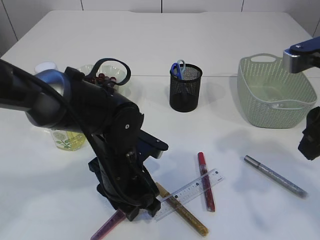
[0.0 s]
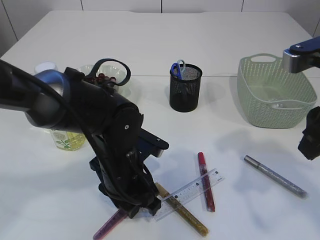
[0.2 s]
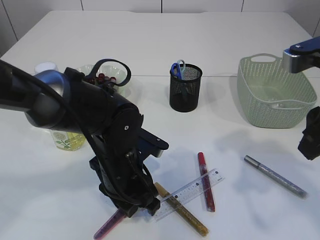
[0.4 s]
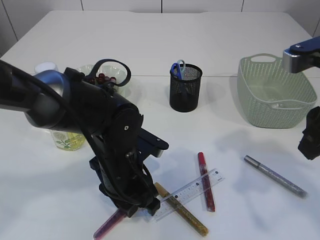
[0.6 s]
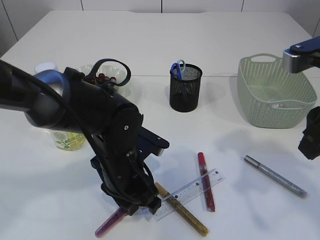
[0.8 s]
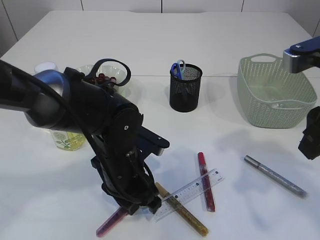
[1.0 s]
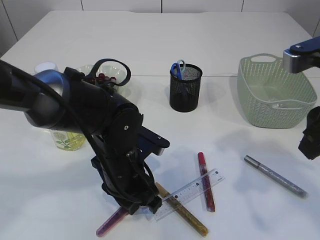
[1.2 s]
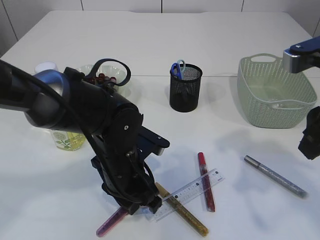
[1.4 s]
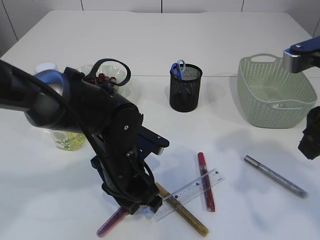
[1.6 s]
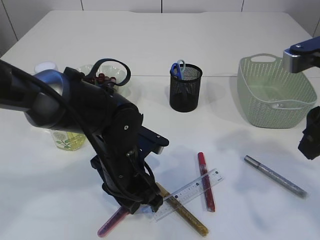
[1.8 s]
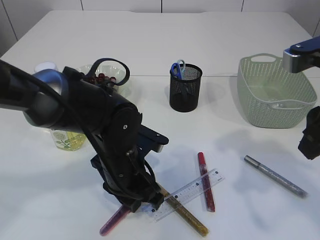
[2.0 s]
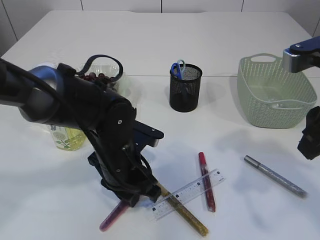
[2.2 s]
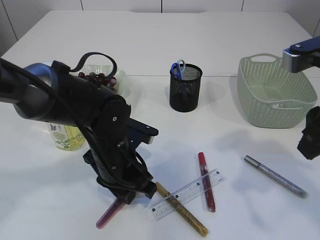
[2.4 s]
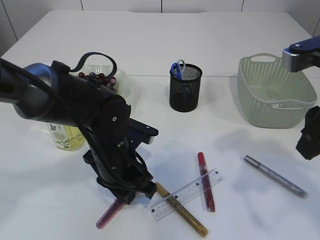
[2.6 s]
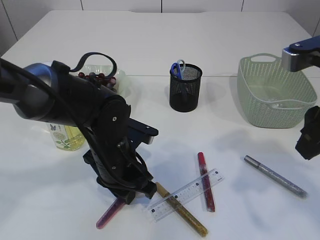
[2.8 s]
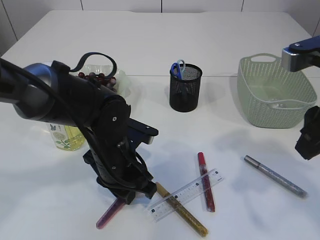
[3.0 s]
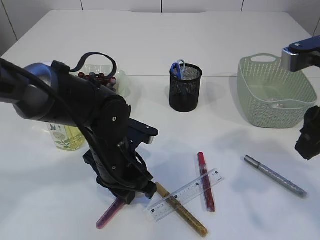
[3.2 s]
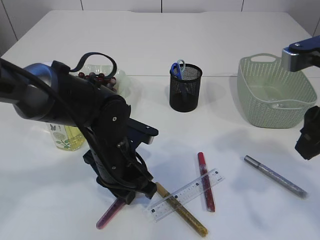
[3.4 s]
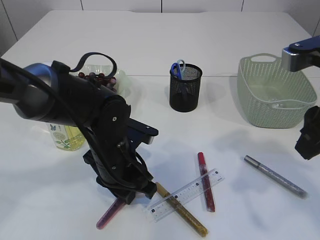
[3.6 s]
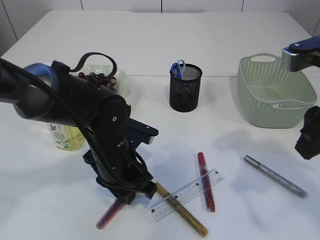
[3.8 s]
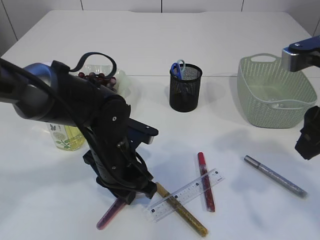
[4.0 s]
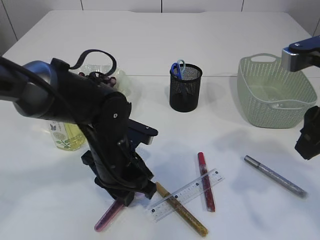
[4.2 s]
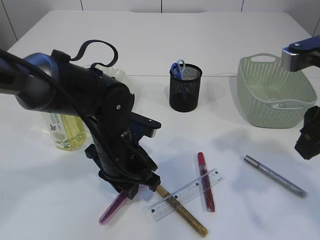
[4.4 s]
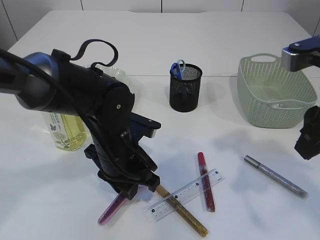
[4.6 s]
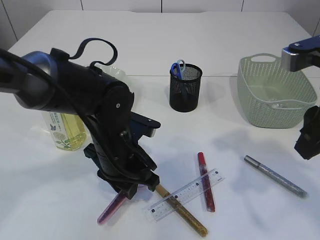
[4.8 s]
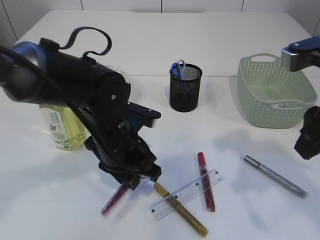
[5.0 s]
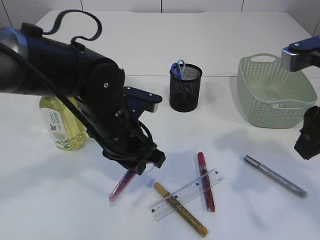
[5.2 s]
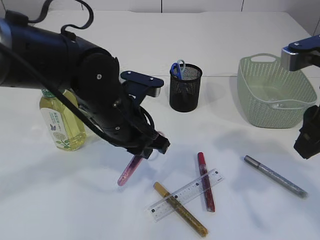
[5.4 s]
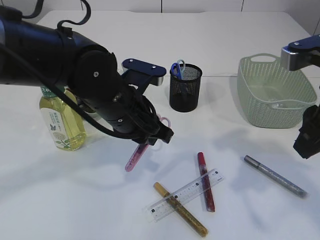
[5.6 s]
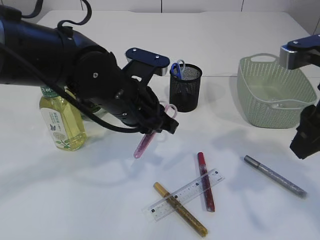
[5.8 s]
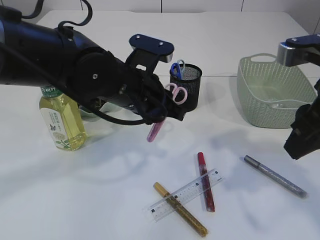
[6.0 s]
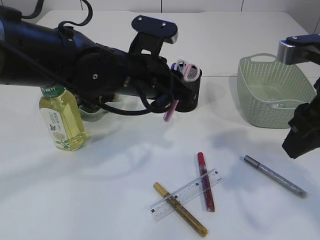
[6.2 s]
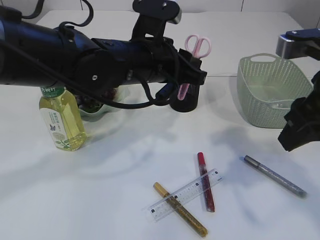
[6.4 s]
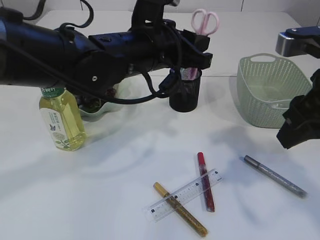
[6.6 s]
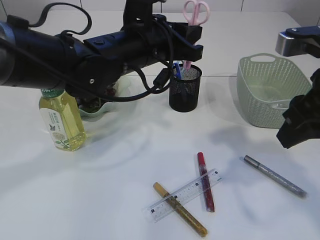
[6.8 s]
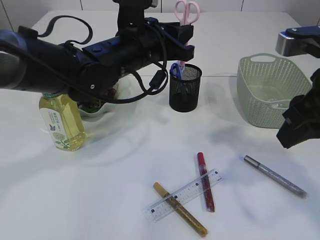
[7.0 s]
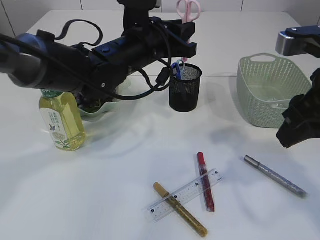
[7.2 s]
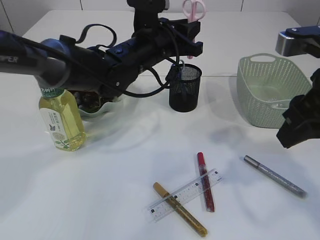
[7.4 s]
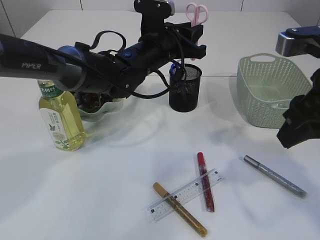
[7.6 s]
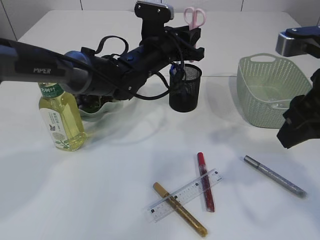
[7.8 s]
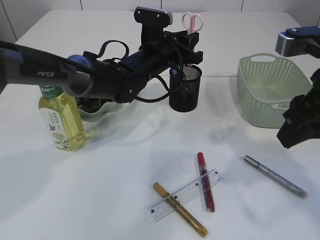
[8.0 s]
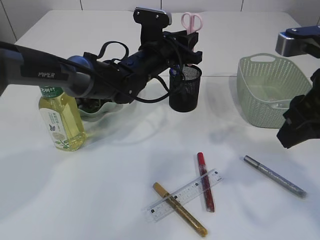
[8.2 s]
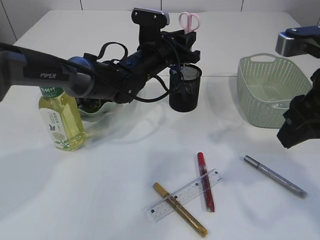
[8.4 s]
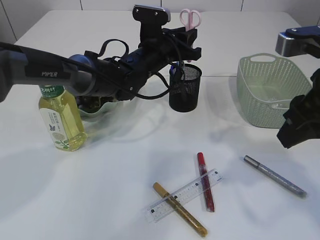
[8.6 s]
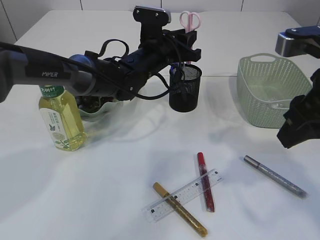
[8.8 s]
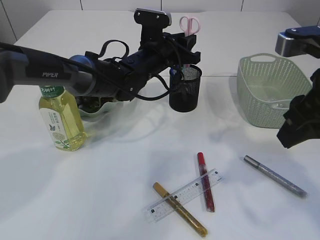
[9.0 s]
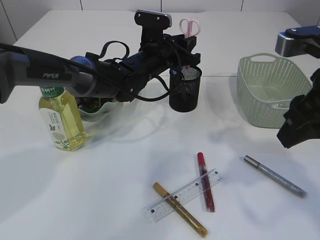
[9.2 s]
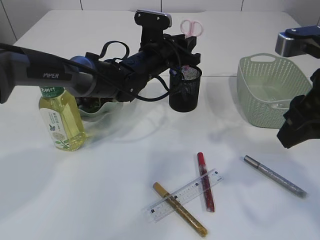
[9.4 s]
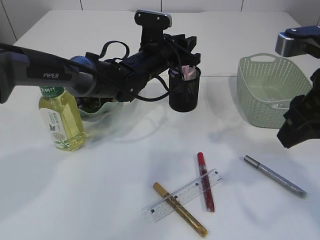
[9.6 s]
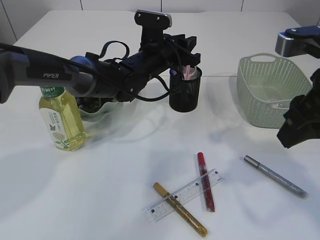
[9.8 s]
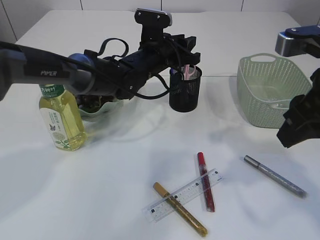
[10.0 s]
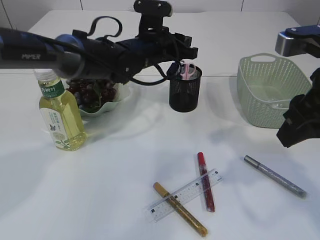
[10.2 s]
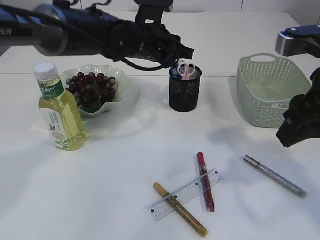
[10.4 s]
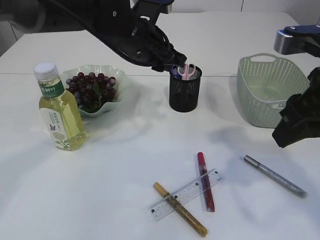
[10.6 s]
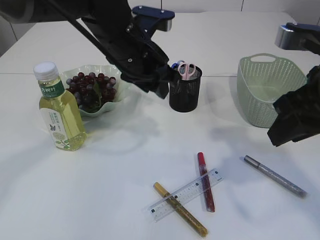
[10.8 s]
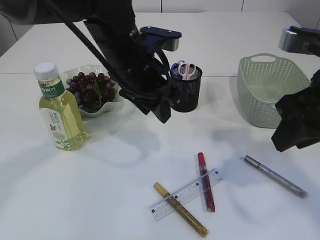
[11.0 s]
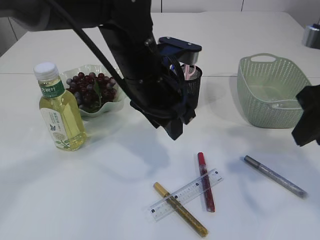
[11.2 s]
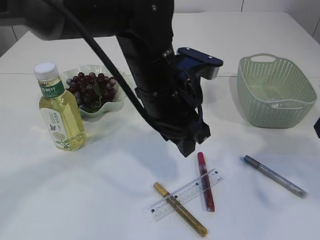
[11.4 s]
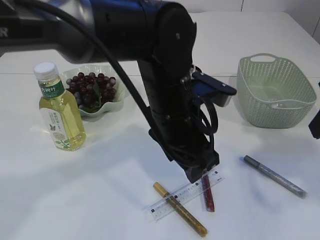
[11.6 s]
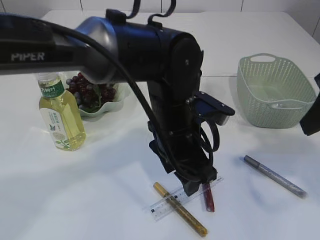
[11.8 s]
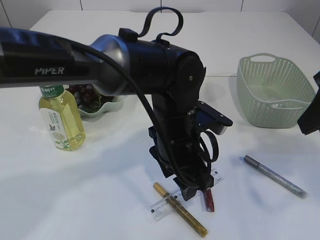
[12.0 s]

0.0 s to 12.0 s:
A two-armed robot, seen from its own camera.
Step, 0.0 to 5.6 s: pick up the pink scissors.
Step, 5.8 to 10.6 s: Place the pink scissors into the pen holder.
0.0 to 1.6 s: Both grippers stay about where they are.
1.6 to 3.0 s: There are only small adjustments of the grippers.
3.0 to 4.4 s: Neither gripper changes place.
4.4 to 6.0 s: The left gripper travels upward by some 10 cm.
6.0 to 7.6 s: The left gripper goes roughly 10 cm forward.
7.6 to 9.0 s: The grippers stay close to where they were, moving slightly.
9.0 to 10.4 s: The left gripper moves about 5 cm.
10.4 to 12.0 s: The left gripper travels backward and downward by some 15 cm, and opens.

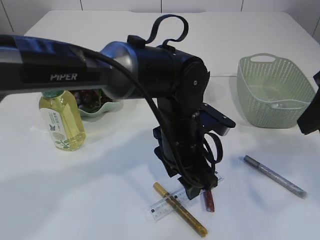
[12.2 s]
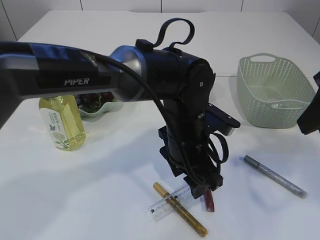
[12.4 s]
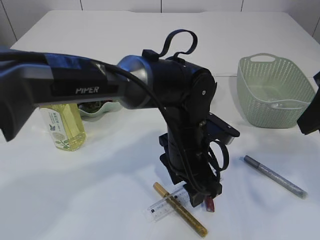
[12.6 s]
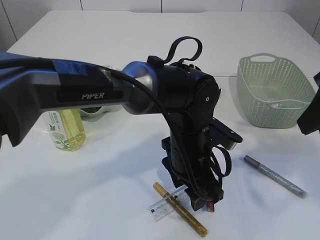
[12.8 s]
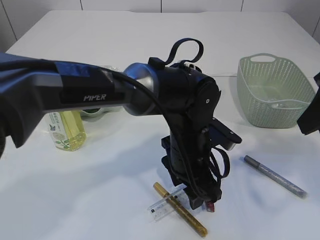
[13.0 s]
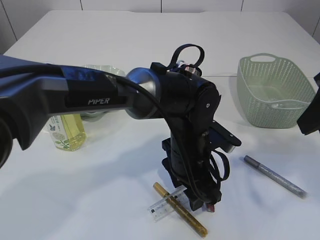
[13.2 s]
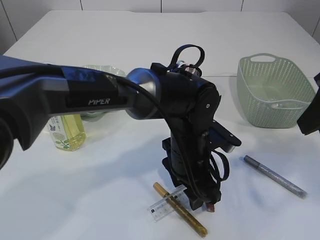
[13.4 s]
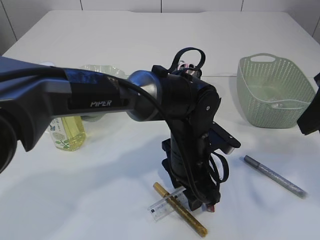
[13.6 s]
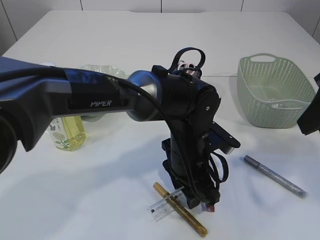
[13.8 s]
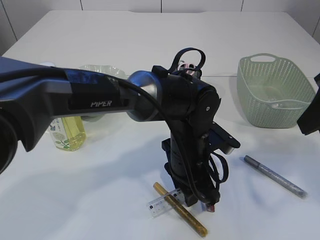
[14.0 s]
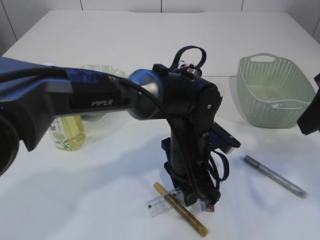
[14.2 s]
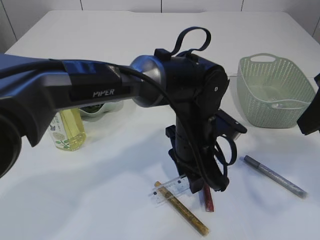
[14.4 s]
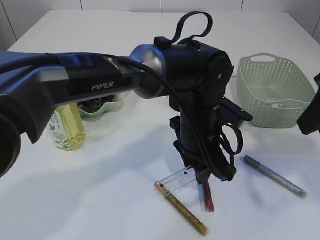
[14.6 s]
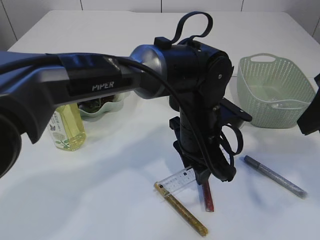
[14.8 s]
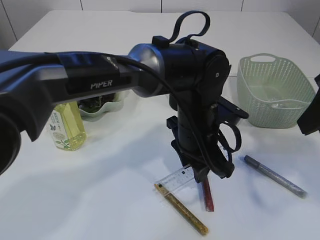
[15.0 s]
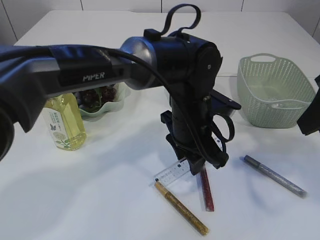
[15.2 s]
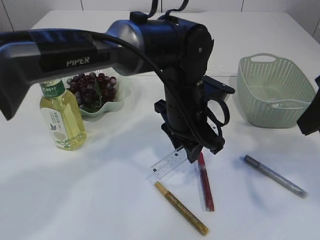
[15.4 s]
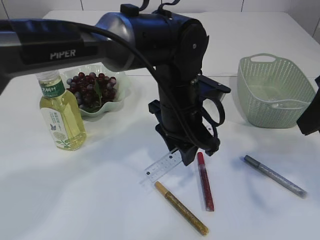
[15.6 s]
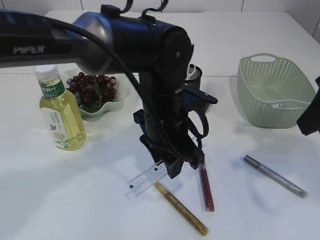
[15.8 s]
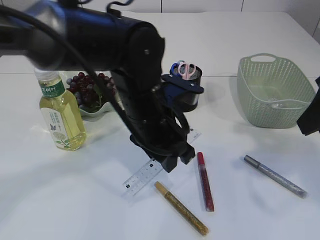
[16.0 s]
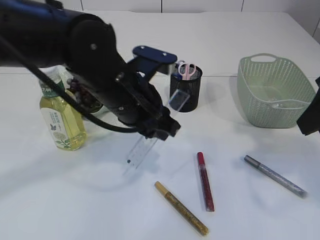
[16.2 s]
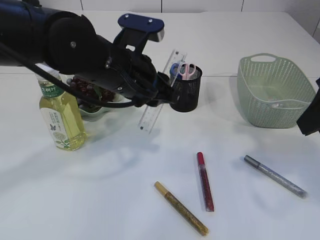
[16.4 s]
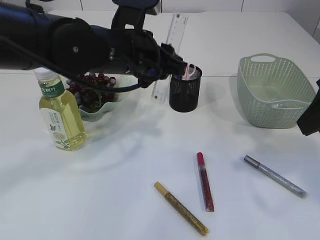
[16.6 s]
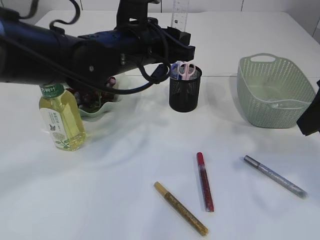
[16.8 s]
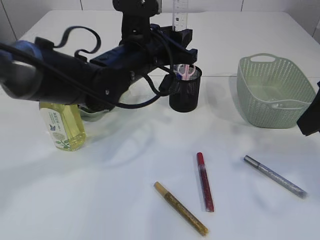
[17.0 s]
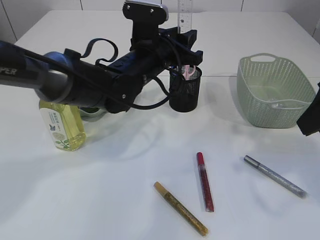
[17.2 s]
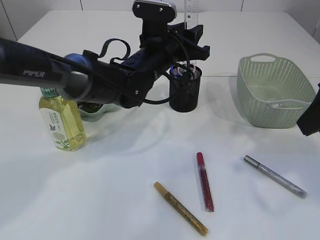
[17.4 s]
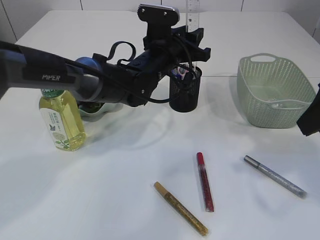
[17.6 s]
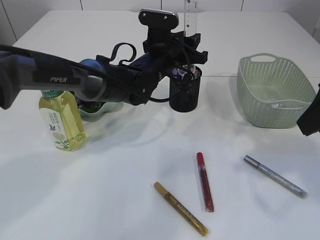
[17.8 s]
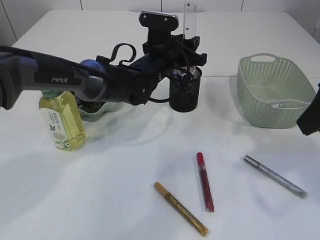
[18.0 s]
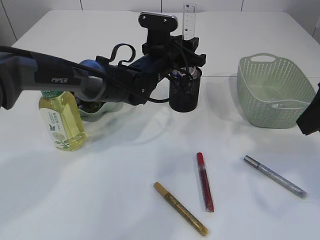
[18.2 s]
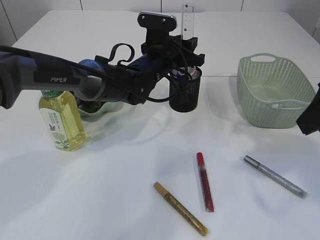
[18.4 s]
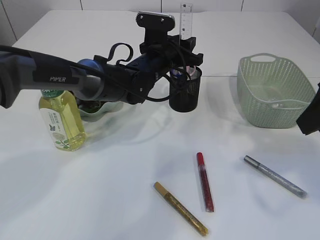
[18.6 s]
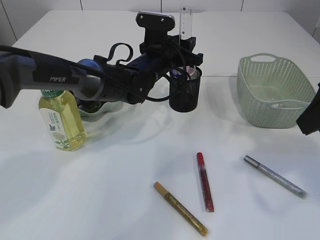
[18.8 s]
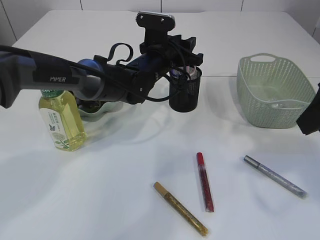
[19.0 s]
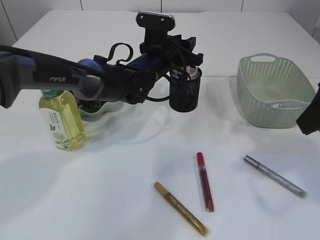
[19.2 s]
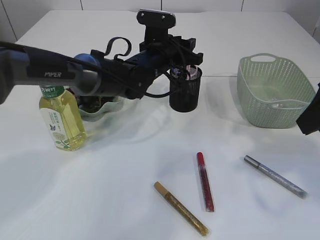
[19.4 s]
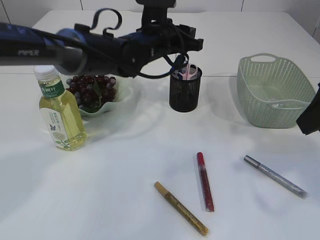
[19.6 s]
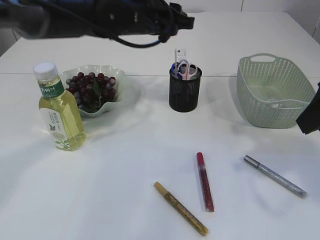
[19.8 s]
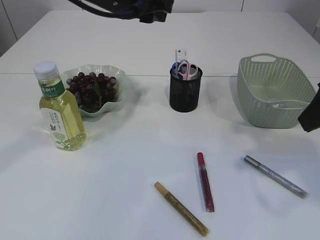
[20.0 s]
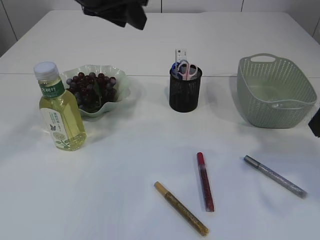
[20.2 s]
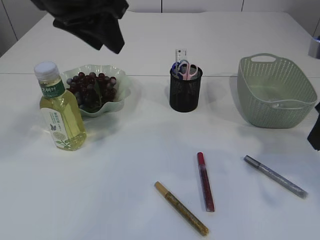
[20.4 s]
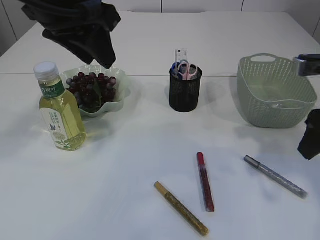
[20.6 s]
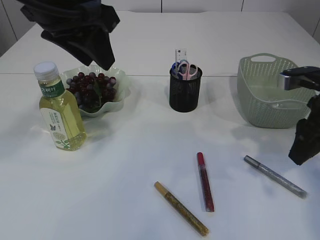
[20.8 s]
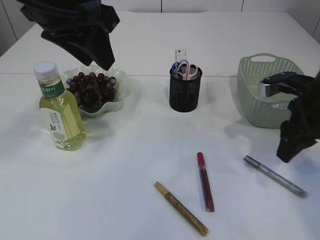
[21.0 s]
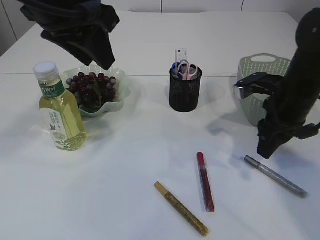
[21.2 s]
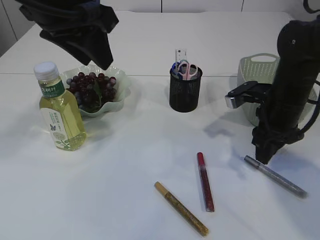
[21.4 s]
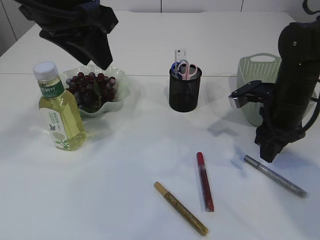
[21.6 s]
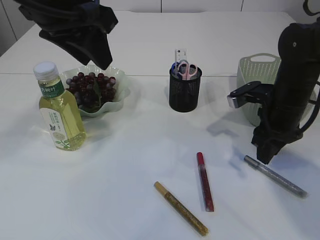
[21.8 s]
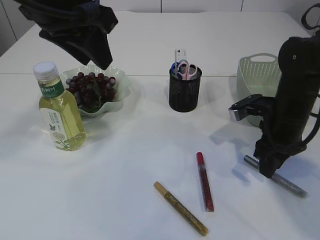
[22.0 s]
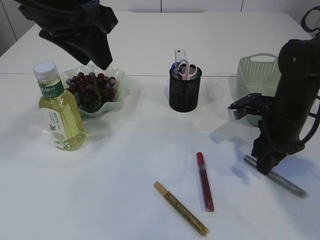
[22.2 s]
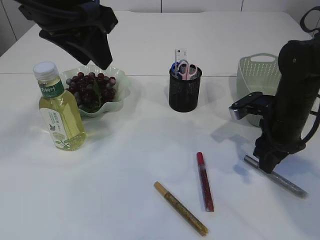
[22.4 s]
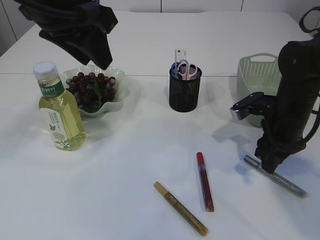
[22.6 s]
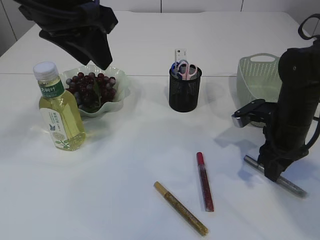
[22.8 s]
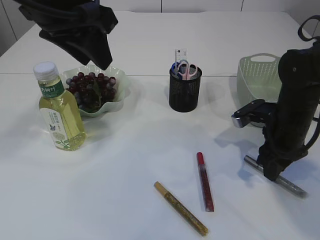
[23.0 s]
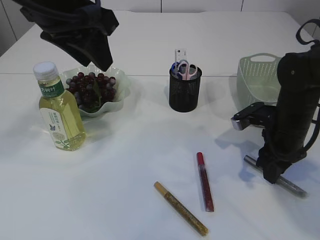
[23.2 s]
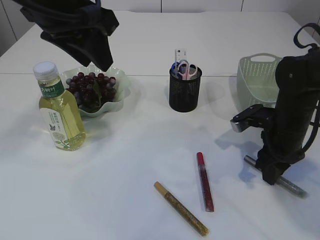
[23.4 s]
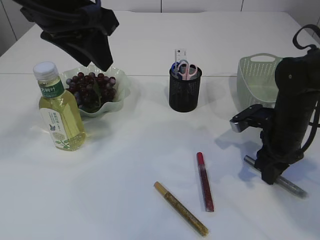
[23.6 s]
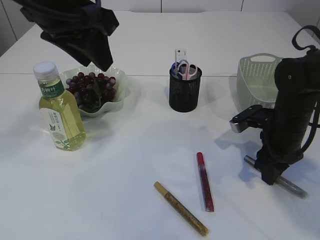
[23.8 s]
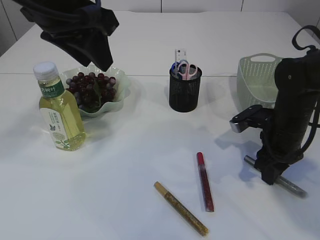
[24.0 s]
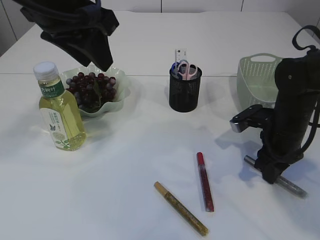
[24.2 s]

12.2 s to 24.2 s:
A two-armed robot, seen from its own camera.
Step, 12.2 to 15.6 s: pick up the ruler.
Step, 15.8 to 19.6 s: Place the ruler into the pen holder.
13.8 to 15.2 s: The left gripper changes place by about 5 cm, and closes up.
15.2 to 16.6 s: The left gripper moves to the left and upward, about 15 cm.
16.6 to 18.2 s: The left gripper heads forward and downward, covering approximately 15 cm.
18.2 to 19.8 s: The left gripper travels upward by approximately 10 cm.
19.8 to 21.2 s: The left gripper shifts roughly 20 cm backward, upward and to the left; the right gripper shifts roughly 15 cm downward and forward.
21.2 to 22.6 s: The grippers stay close to where they were, moving slightly.
22.6 to 24.2 s: The grippers move only a little.
